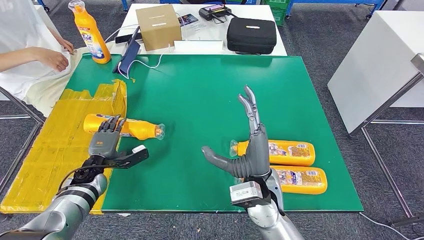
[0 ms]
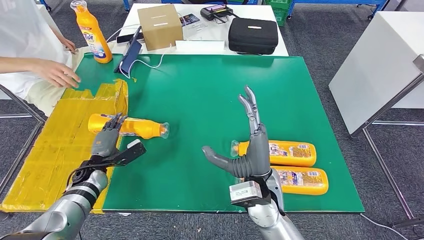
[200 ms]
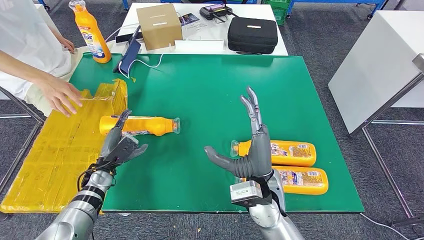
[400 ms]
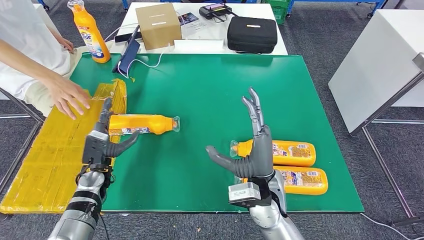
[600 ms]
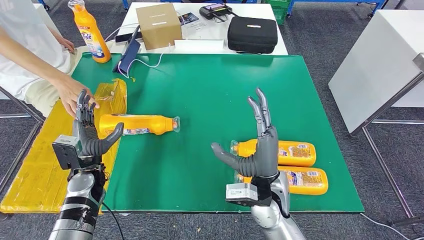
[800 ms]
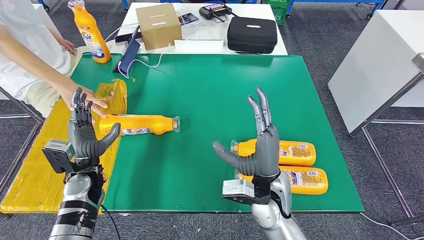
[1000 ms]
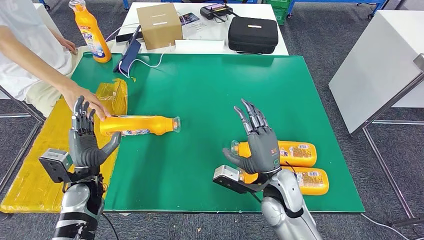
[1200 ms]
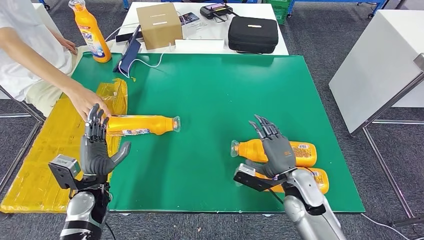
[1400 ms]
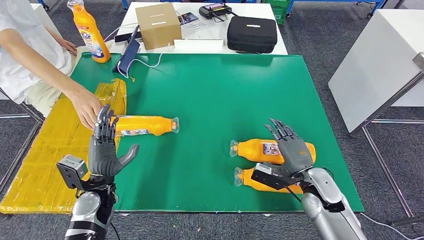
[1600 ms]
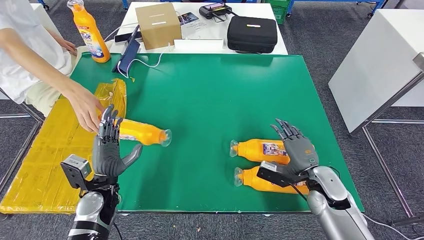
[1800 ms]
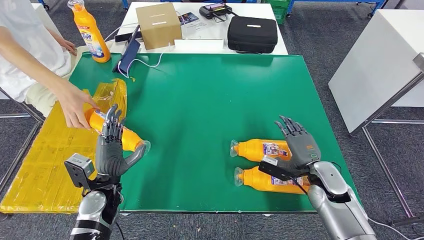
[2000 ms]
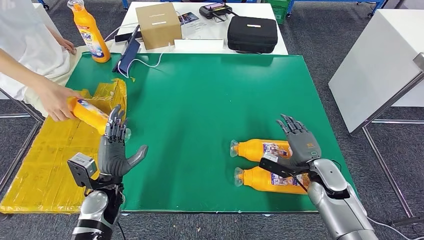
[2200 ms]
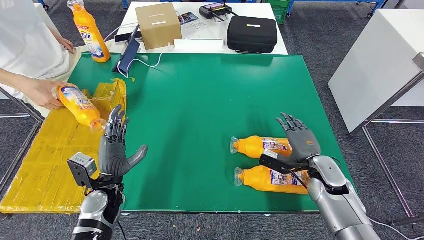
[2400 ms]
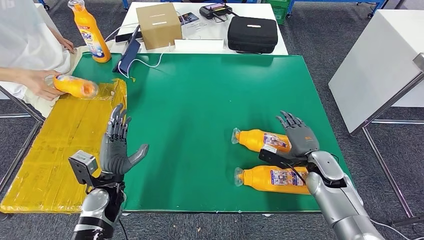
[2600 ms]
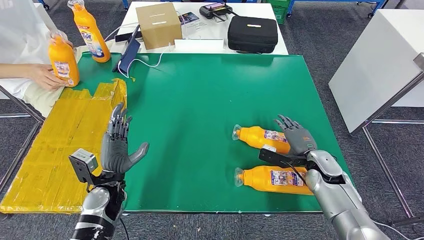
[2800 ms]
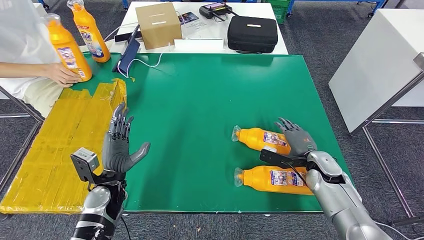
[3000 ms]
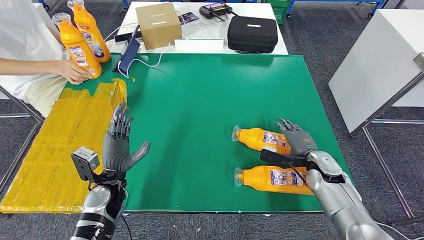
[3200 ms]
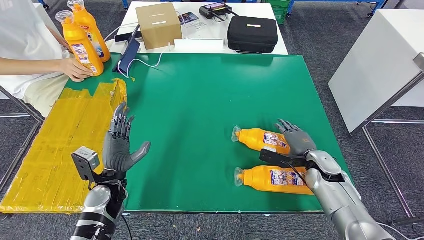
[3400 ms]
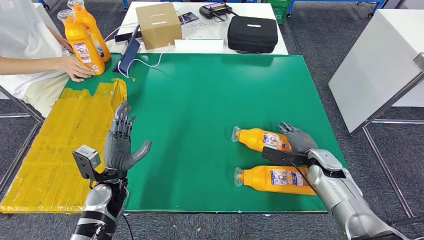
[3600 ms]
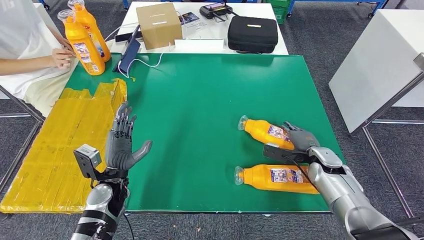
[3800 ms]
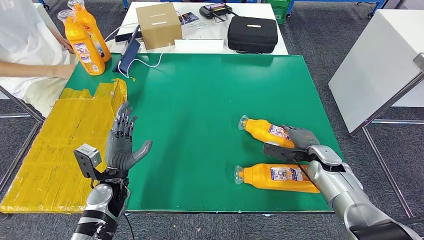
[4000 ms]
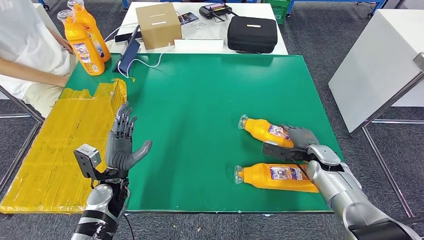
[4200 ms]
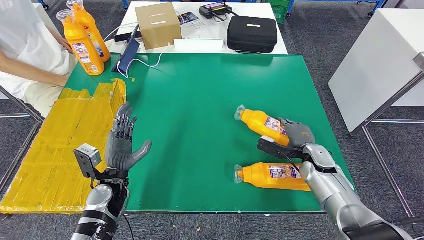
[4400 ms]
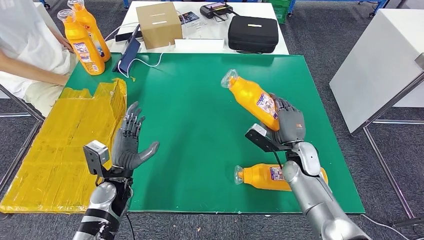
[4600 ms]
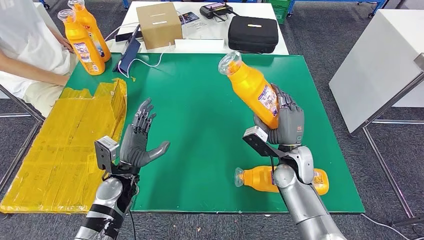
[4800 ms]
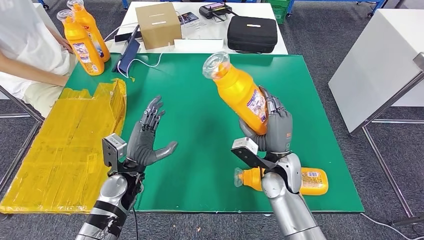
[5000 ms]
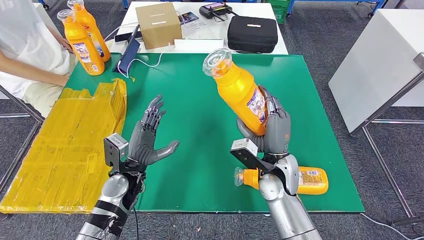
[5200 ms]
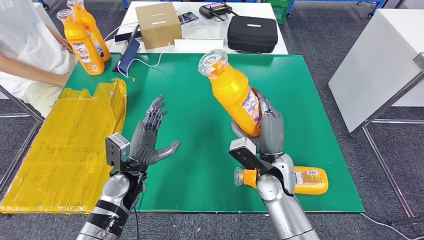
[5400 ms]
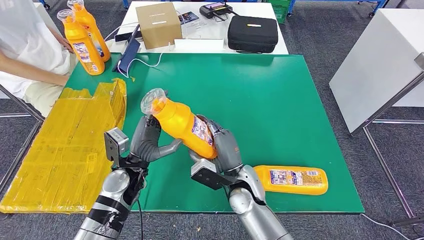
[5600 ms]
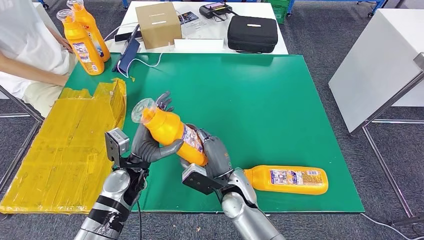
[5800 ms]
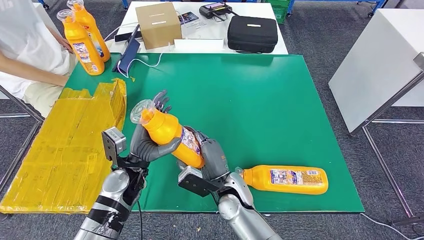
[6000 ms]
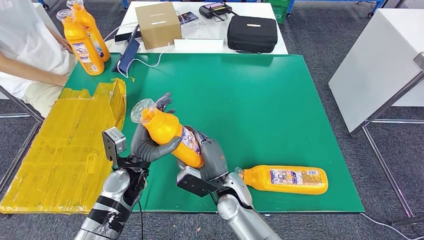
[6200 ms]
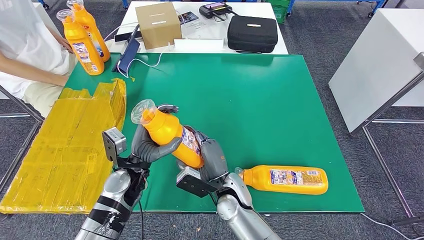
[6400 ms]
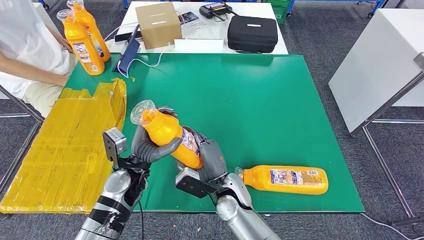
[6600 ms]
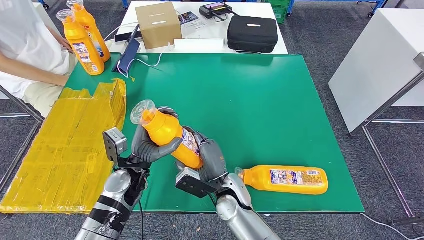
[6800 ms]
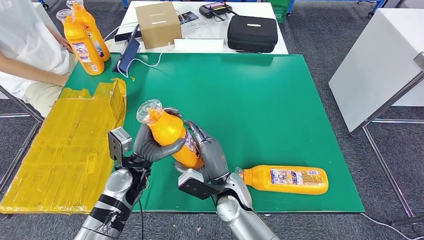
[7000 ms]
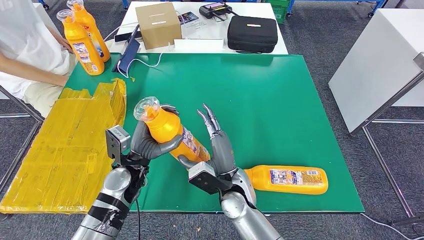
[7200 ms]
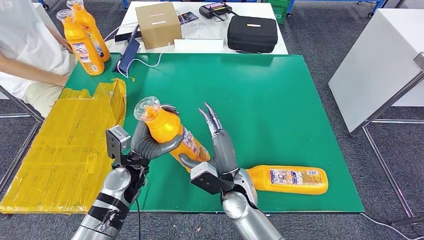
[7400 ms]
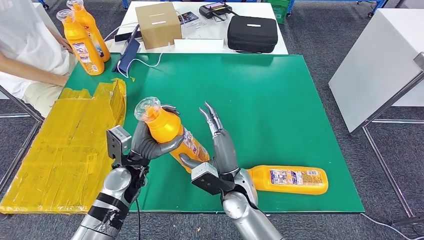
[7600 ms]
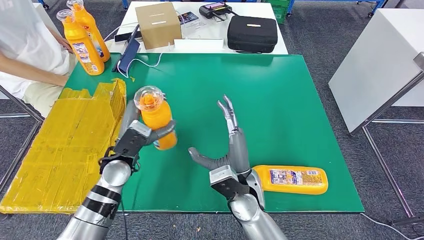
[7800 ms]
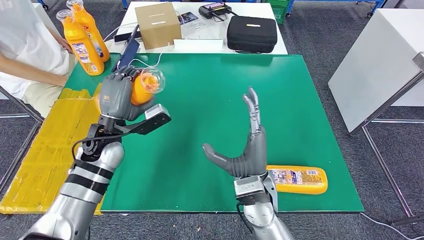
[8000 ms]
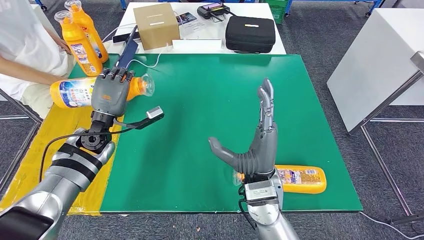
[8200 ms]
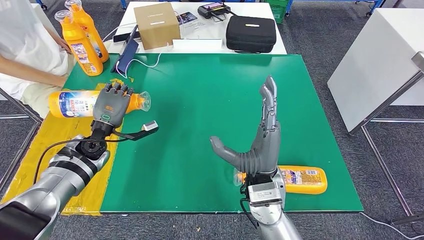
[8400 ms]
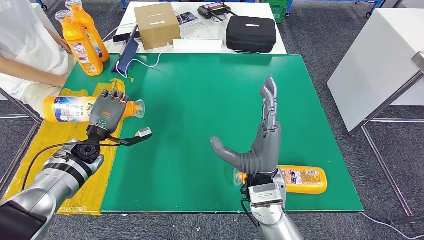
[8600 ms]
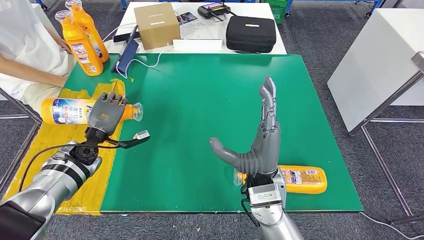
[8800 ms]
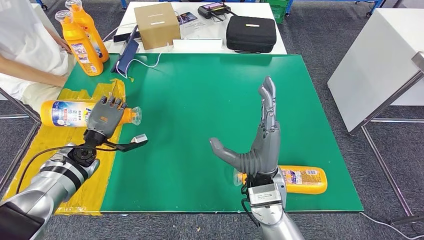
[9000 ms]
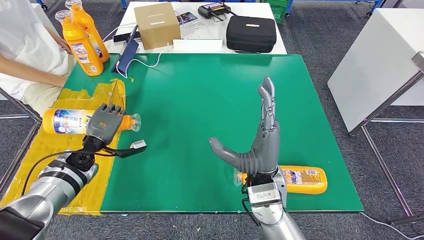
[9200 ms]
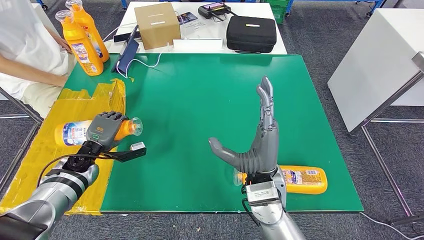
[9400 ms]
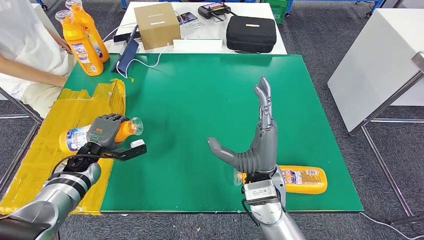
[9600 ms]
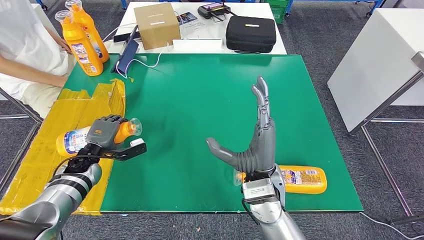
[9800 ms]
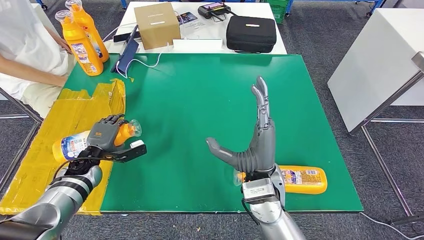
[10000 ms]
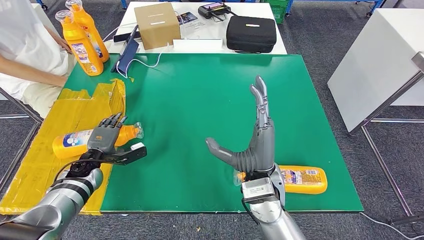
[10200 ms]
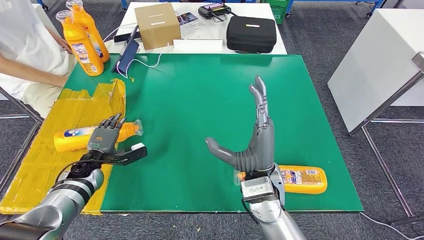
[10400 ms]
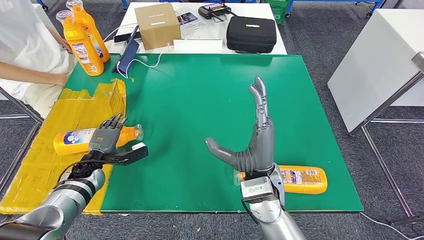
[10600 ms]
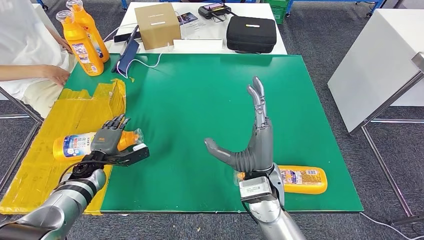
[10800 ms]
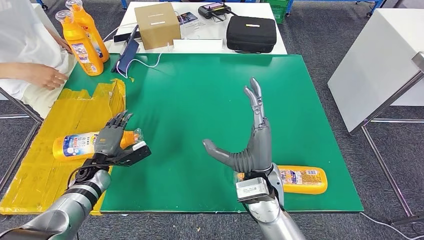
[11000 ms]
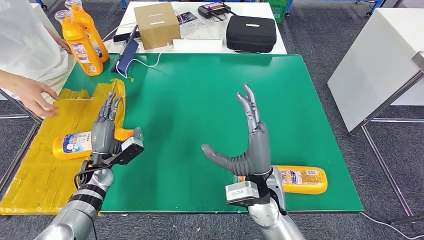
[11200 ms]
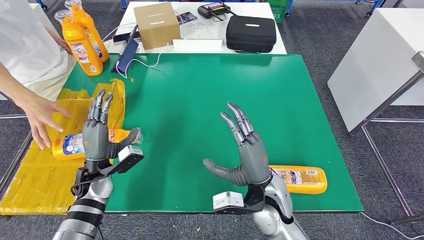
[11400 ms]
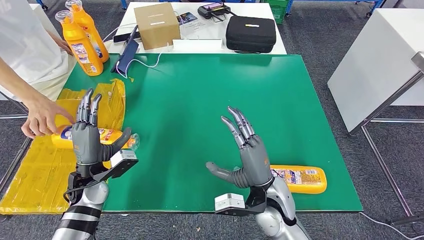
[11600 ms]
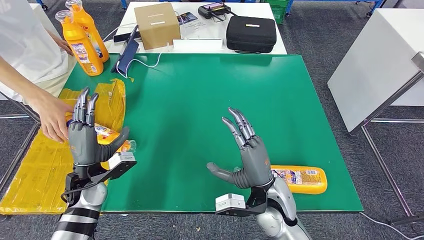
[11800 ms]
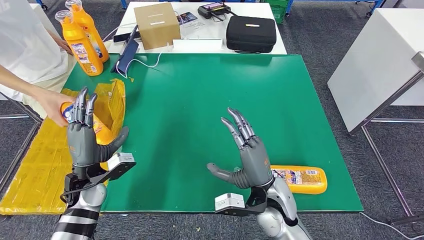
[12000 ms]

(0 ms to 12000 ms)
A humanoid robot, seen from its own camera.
Step, 1000 ms - 6600 ms: Pick up the fast-moving consumer goods bottle from the table.
Step, 6800 ms - 11200 ms: Flip the fast-moving consumer goods bottle to the front side.
1600 ms - 3000 ms: The right hand goes some 5 cm forward.
3000 ms - 4400 ms: The hands move only a little.
4400 ms - 6000 ms: The left hand shifts approximately 5 cm to the right; the right hand moves to the left, approximately 25 cm.
6000 ms - 7600 ms: The hands make only small movements.
9000 ms - 10400 ms: The left hand goes about 5 cm downward.
10400 ms - 12000 ms: The right hand heads downward, covering approximately 5 cm; the left hand travels backward, upward and to the right by approximately 10 cm.

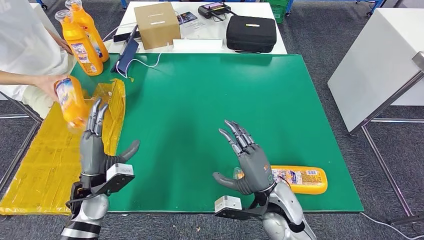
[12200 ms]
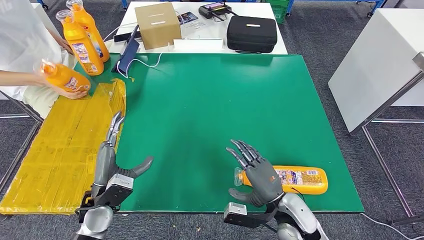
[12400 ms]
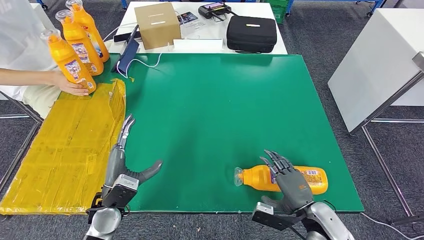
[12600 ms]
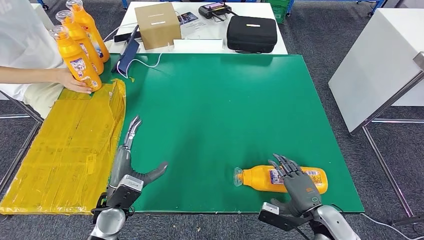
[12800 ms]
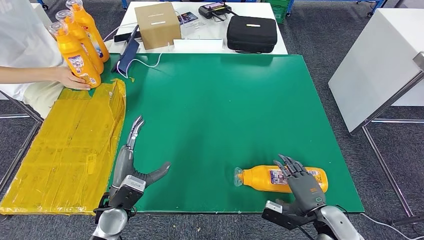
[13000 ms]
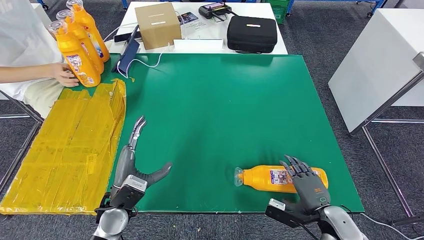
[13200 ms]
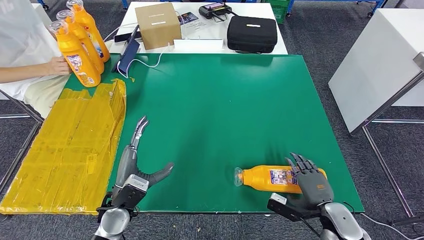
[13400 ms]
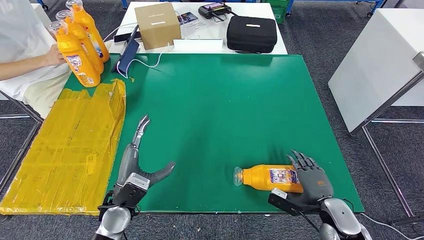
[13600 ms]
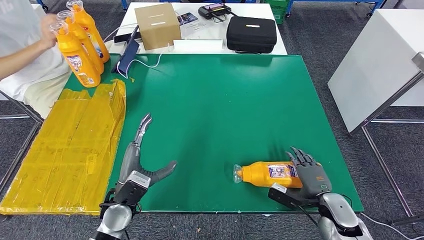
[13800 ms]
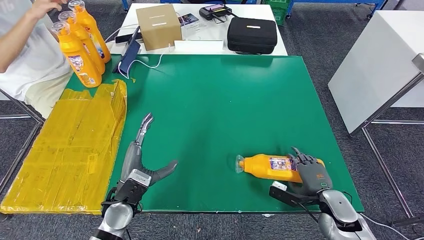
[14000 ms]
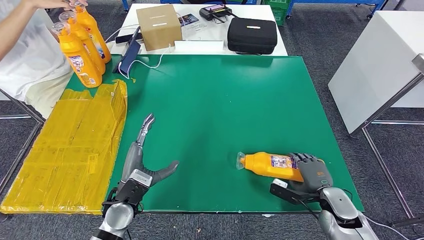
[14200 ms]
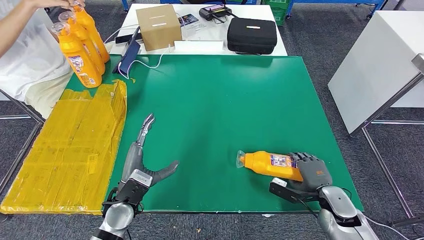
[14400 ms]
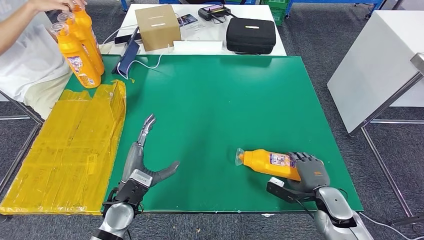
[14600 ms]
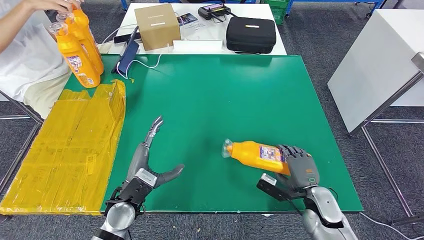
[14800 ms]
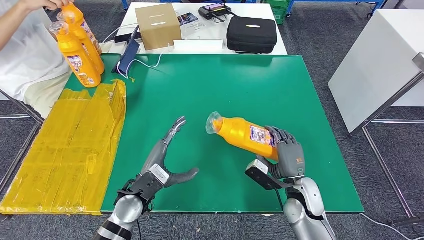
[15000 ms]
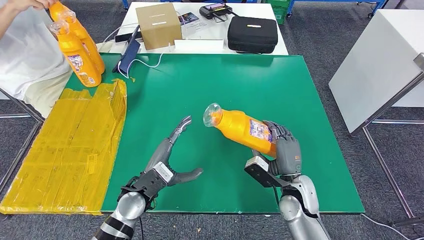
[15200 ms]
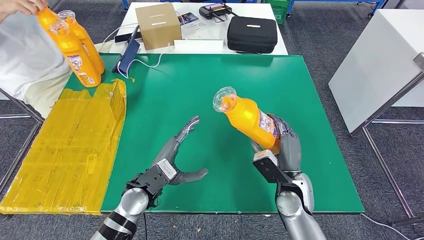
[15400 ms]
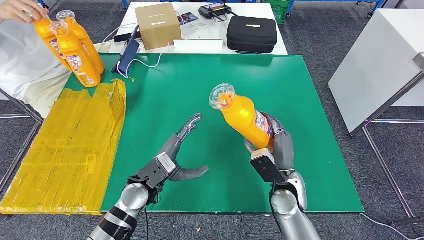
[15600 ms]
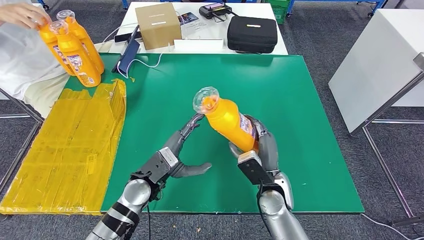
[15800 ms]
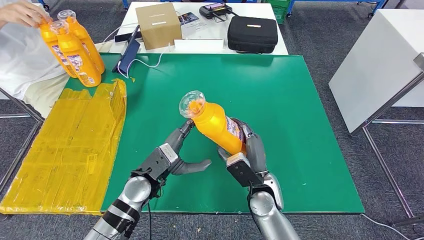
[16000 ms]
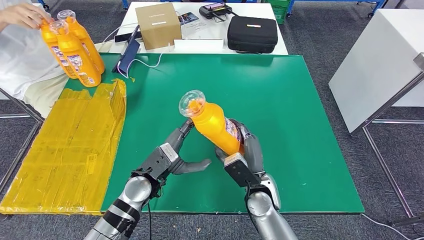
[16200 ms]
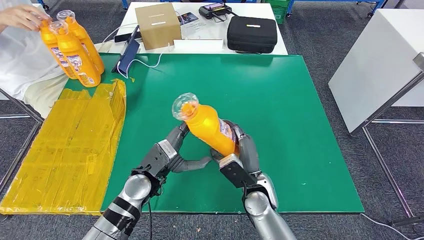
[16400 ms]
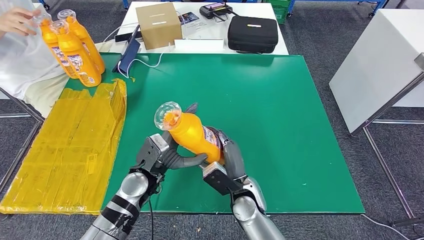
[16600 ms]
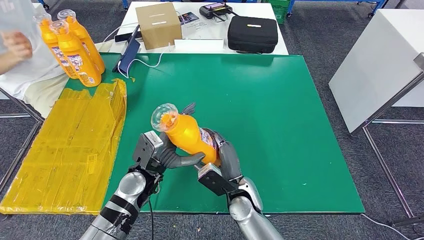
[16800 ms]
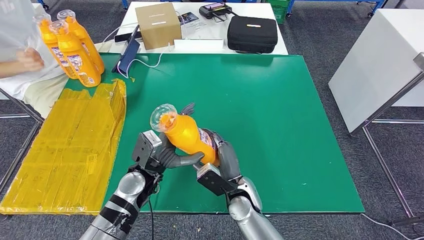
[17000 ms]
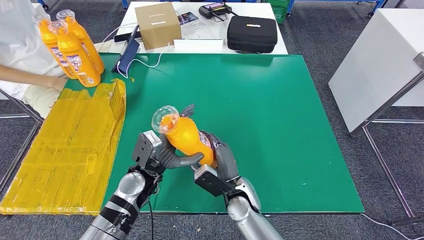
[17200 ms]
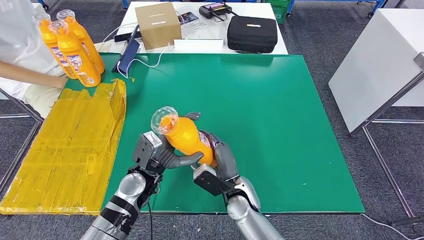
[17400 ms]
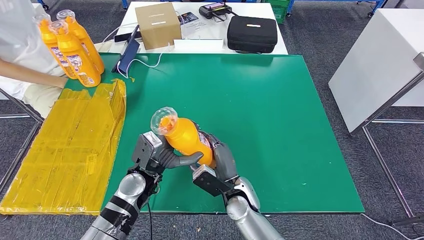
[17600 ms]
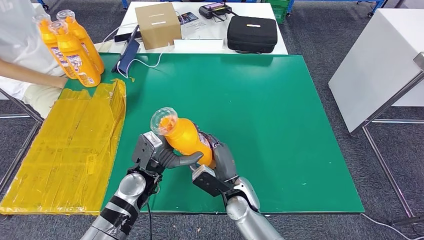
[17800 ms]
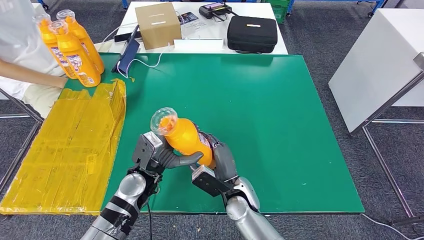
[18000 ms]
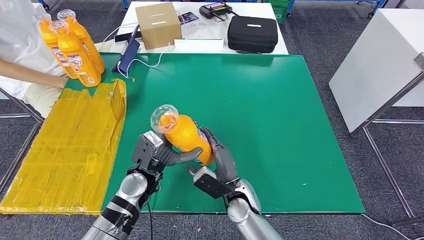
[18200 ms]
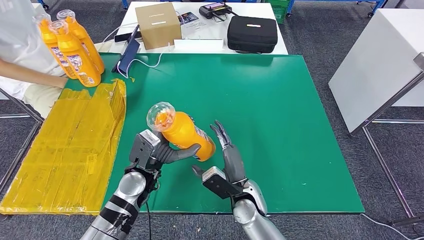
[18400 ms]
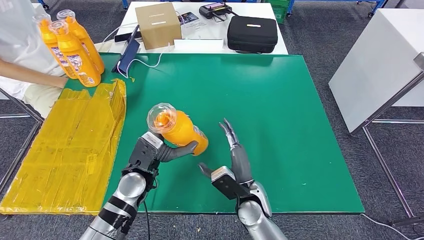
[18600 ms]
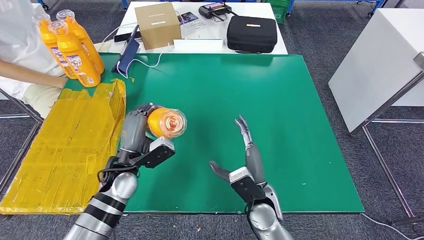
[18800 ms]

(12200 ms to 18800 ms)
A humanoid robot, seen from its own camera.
Step, 12200 ms - 17400 ms: Pick up the fast-moving consumer goods bottle from the table.
13800 ms - 15400 ms: The right hand moves to the left and upward, about 15 cm; the left hand heads to the right, covering approximately 5 cm.
15400 ms - 17200 ms: The right hand shifts some 15 cm to the left.
17200 ms - 18800 ms: The left hand ends up about 5 cm from where it was. Meanwhile the right hand ends up roughly 5 cm from where it was.
